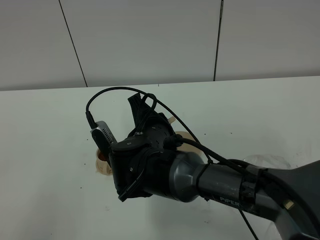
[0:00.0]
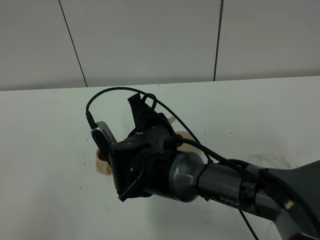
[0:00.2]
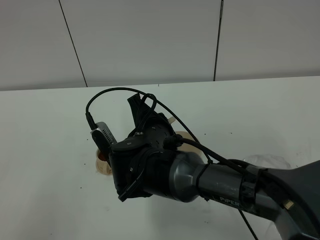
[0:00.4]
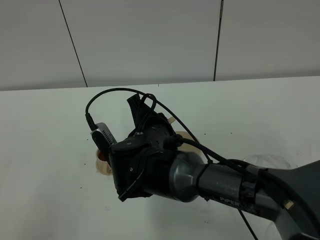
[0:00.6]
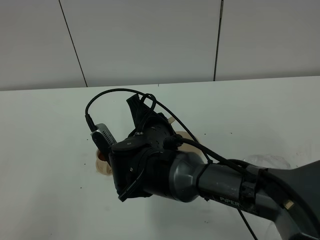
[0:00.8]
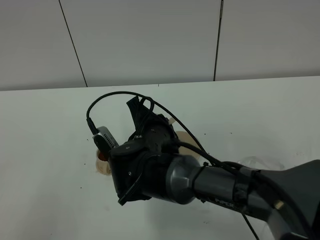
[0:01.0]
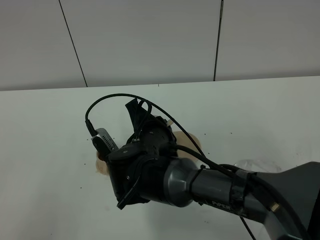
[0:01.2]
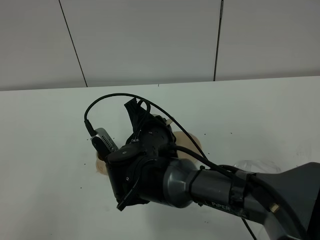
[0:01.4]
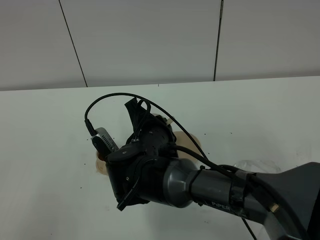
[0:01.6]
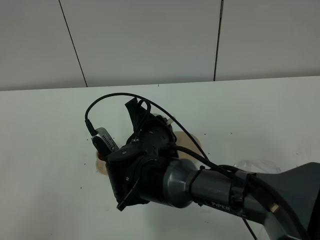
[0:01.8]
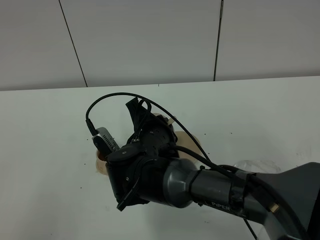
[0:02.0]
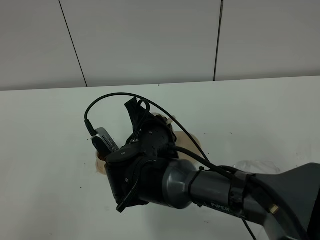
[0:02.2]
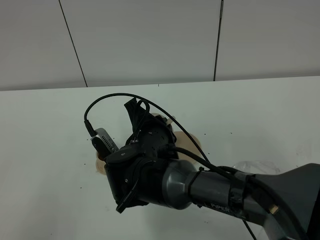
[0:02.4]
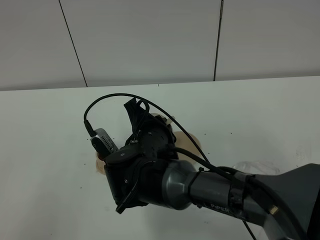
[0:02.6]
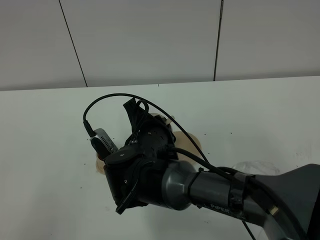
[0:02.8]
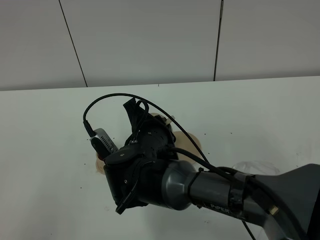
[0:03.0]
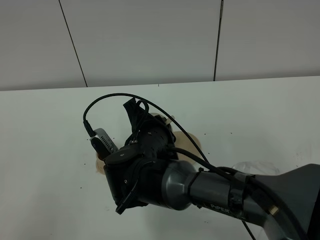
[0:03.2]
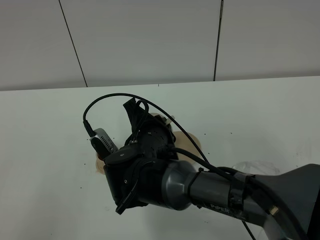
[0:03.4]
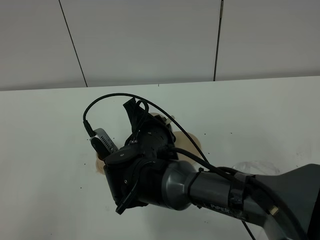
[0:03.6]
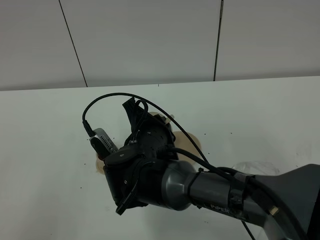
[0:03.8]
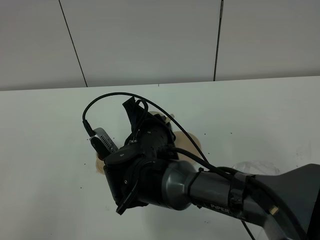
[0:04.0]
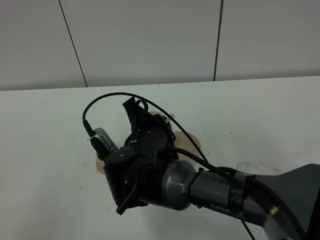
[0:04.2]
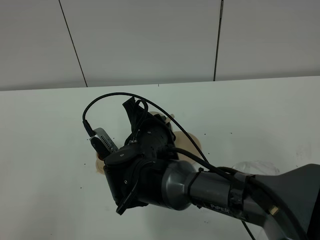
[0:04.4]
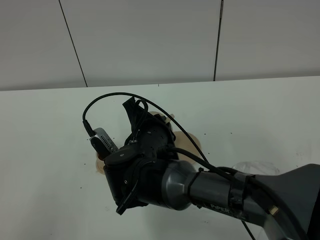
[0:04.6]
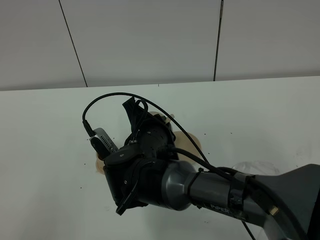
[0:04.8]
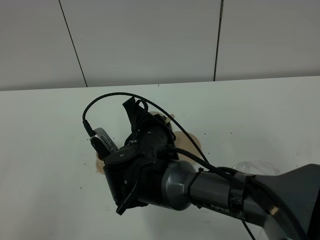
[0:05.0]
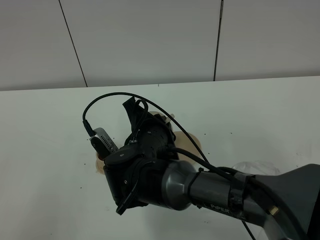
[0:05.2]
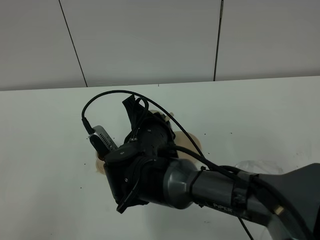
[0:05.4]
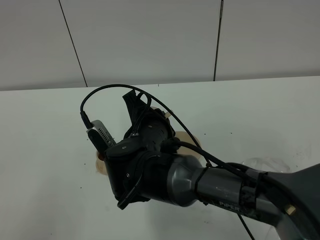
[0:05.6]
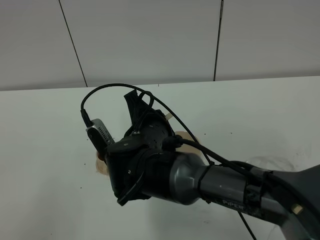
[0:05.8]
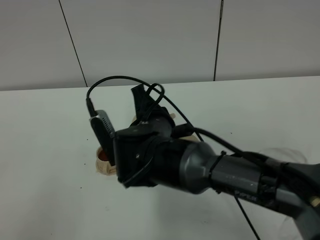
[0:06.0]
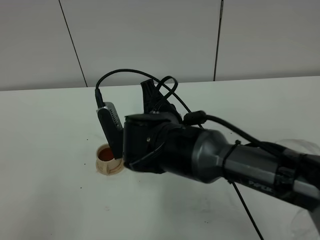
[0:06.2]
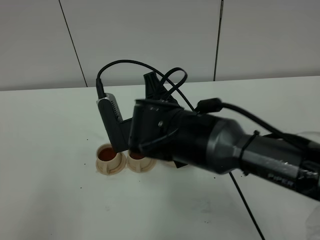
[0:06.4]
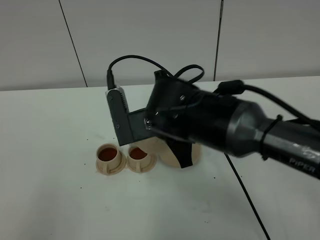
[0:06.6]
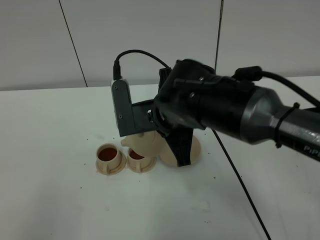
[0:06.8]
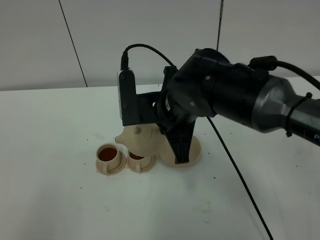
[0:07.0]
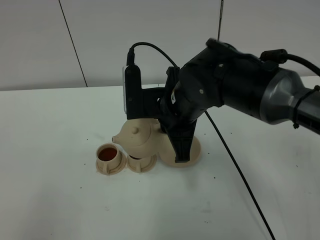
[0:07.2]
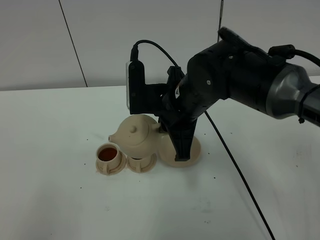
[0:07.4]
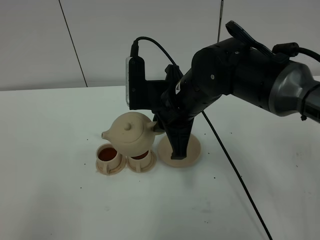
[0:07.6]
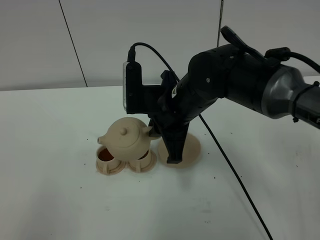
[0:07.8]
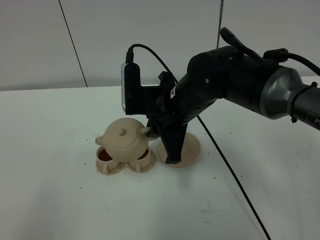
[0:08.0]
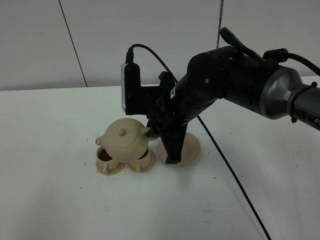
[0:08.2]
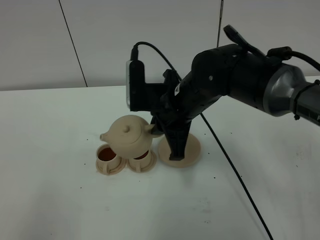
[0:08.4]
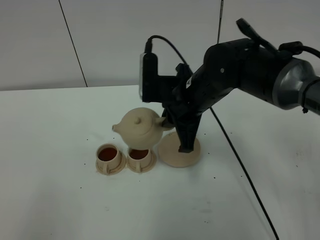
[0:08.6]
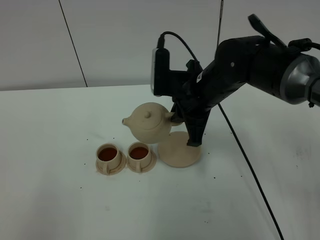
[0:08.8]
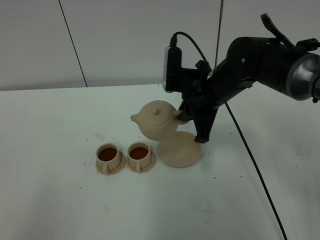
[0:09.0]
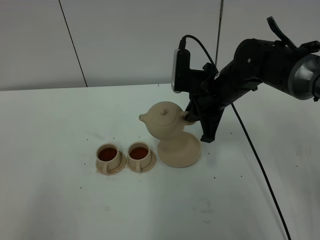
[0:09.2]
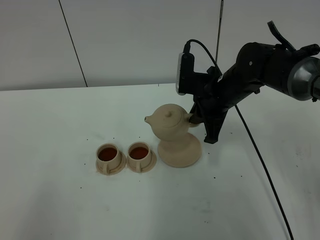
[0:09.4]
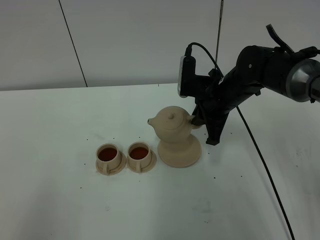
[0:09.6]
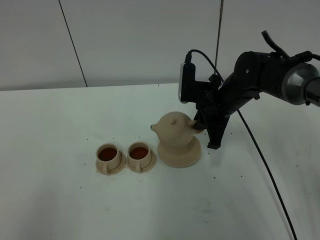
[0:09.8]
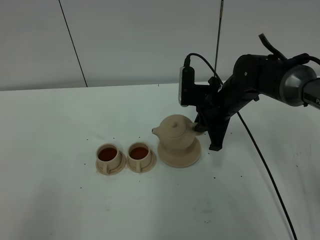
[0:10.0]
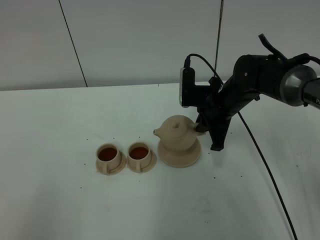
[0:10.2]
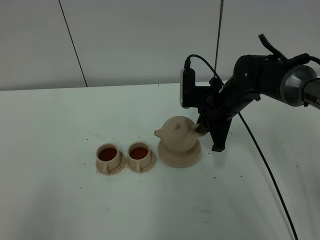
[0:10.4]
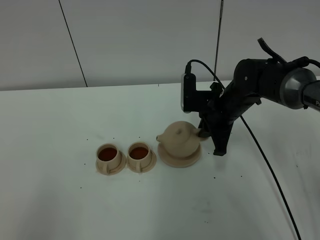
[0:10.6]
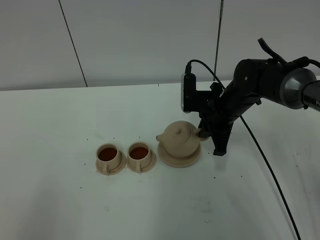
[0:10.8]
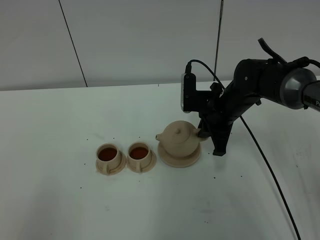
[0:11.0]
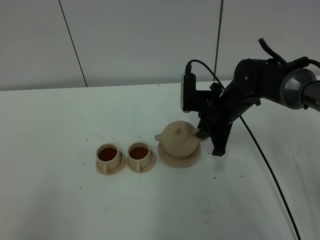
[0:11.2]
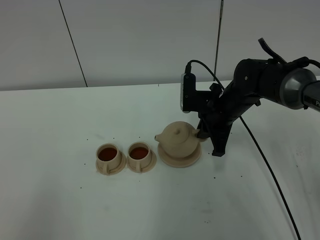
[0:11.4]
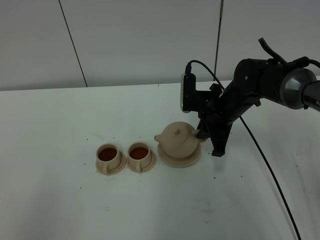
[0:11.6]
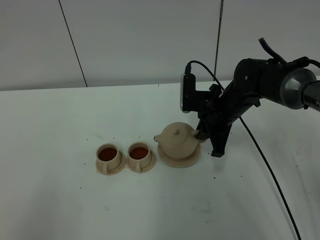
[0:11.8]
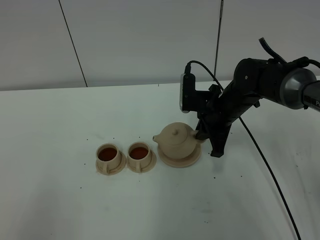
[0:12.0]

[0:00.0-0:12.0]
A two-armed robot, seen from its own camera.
Task of the whole recording: grasp the brown teapot and pour the tea into the two brown teacups one by one, put the brown teapot back in its original place.
Step, 0:00.0 to 0:06.2: Pour tea into the teacup with right gripper.
0:00.0 to 0:01.6: The grippers stay close to where they were, moving slightly.
0:01.6 to 0:04.4: Both grippers stay put.
0:04.4 to 0:06.0: The grippers move only a little.
0:06.0 to 0:07.6: The right gripper is displaced to the right and upward by about 10 cm.
0:07.6 to 0:09.0: The right gripper travels forward and to the right by approximately 10 cm.
0:09.0 to 0:10.4: The right gripper heads downward, covering roughly 5 cm.
0:10.4 to 0:12.0: Both grippers stay put.

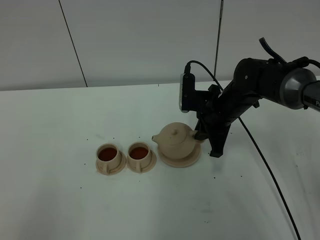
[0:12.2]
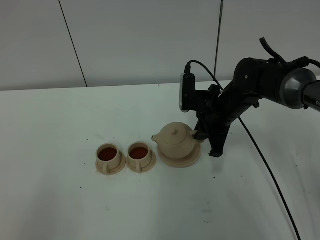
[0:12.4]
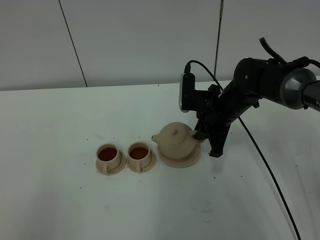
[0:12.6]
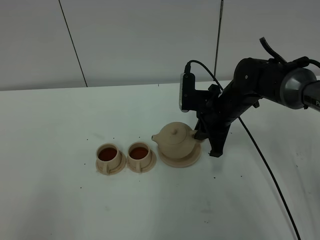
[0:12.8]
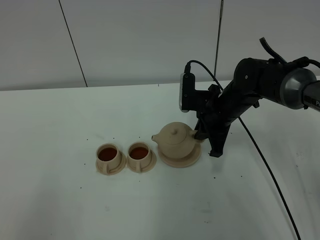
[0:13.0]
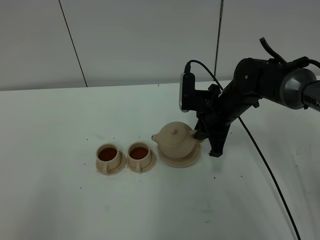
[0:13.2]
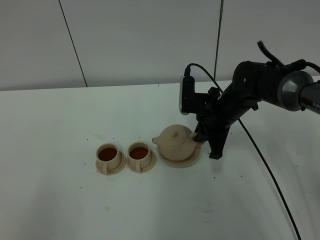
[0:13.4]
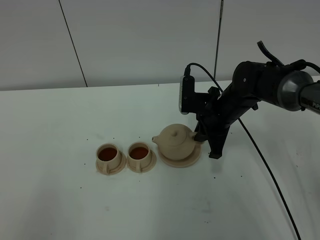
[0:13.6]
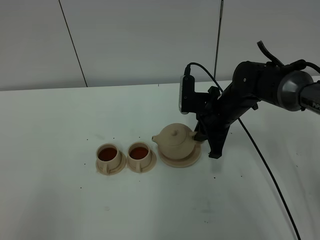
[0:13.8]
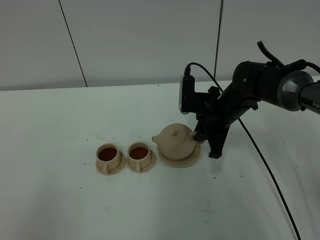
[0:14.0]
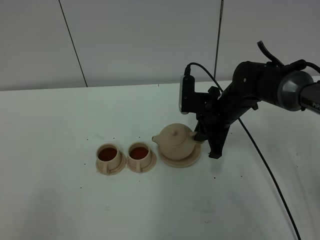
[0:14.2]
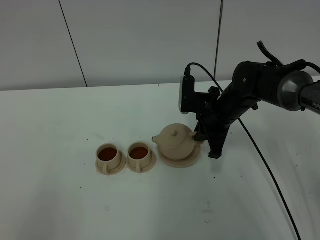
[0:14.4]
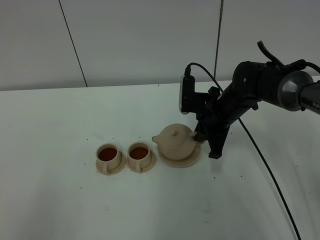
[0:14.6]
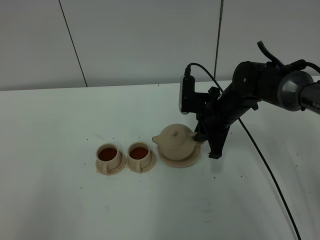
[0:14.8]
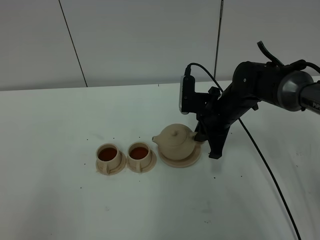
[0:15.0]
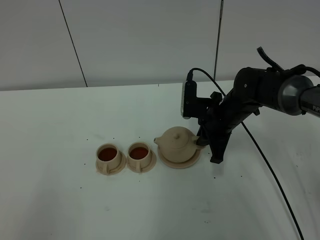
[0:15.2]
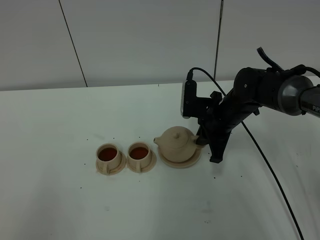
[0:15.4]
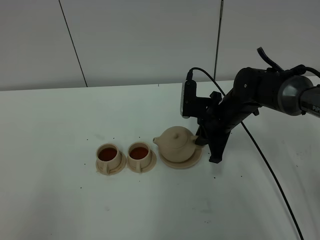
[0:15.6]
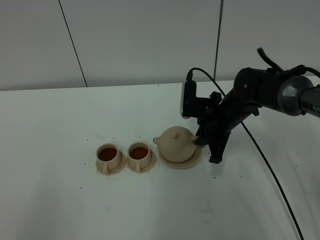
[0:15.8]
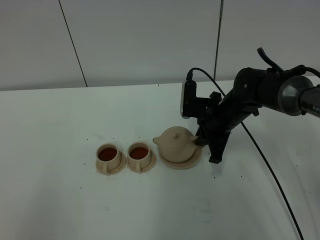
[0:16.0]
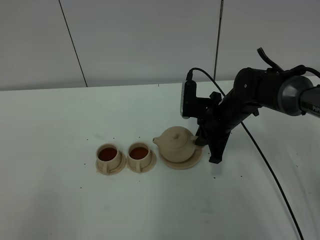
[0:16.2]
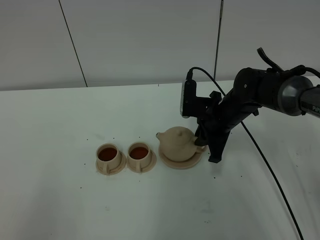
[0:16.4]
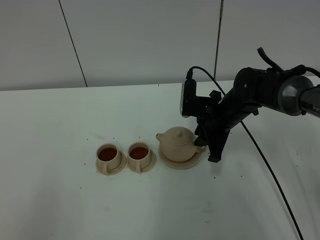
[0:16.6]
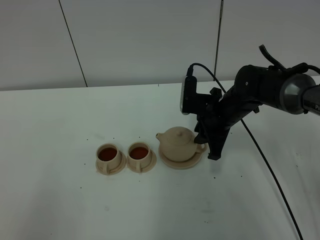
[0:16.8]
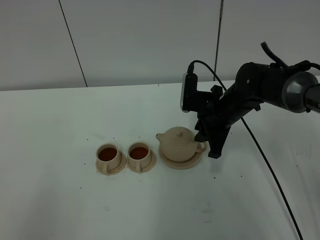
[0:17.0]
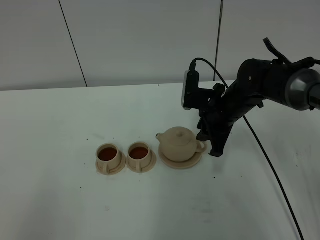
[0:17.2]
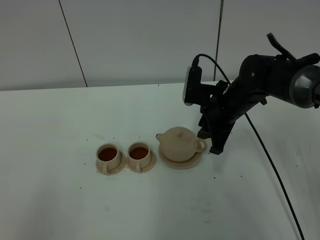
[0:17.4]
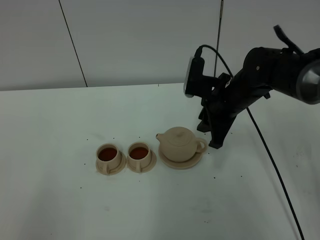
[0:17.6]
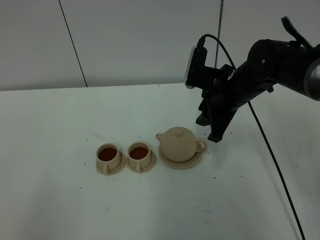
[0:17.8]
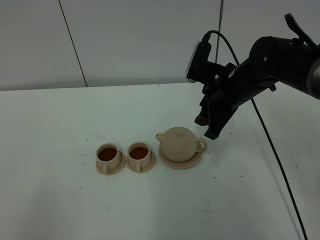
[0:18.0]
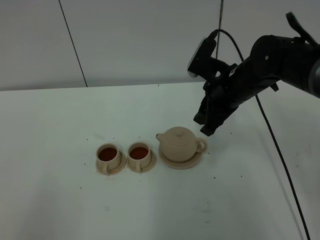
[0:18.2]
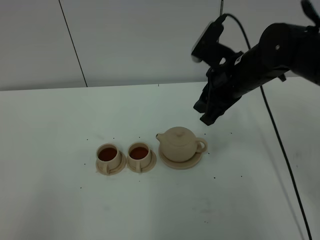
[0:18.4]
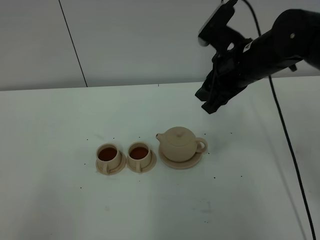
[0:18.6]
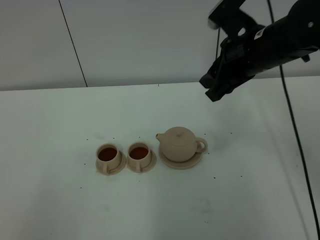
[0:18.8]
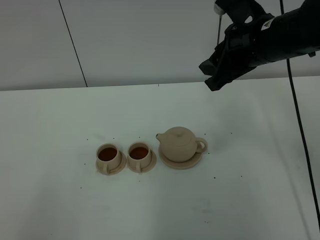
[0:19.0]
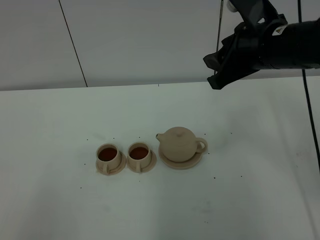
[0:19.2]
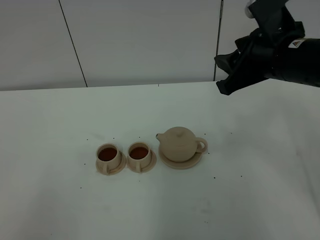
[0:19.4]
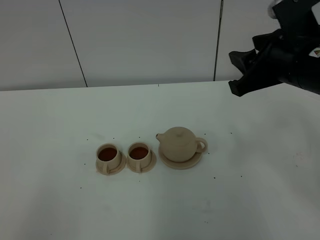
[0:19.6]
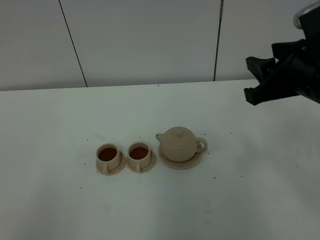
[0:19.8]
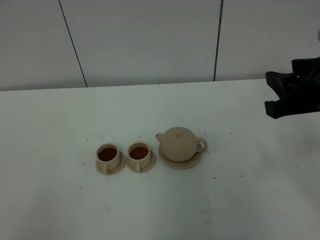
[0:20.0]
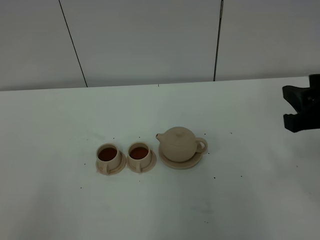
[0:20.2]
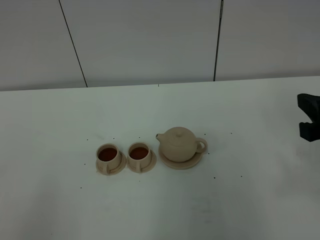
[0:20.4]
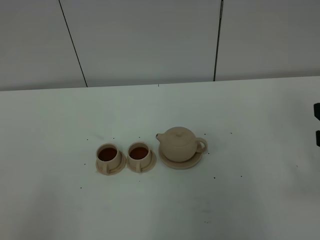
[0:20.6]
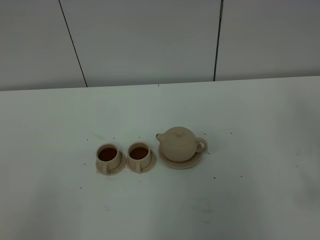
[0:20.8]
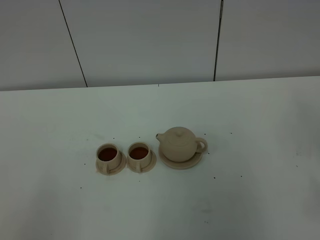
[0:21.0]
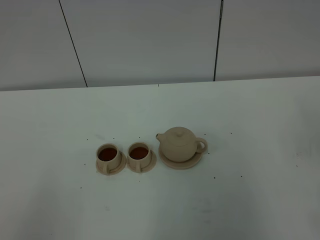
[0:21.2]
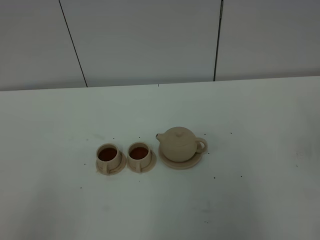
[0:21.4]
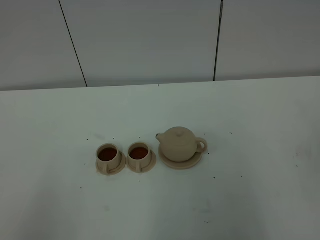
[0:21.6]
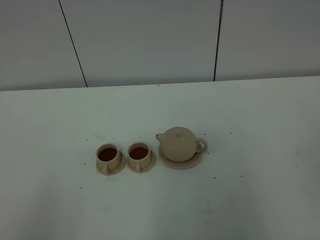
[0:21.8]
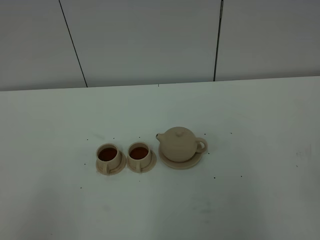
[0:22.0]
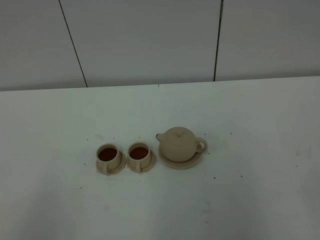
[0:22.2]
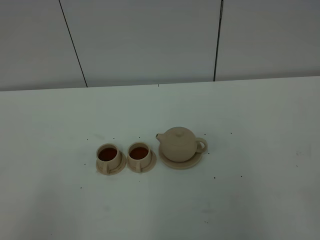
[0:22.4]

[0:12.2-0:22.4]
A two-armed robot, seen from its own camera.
Task of the whole recording: grasp the brown teapot and pour the tea into the two brown teacups one by one, put the brown teapot back in its original place.
Step, 0:12.2 to 0:17.2: Put down the teapot with right gripper.
0:12.2 to 0:13.6: Both grippers stay put.
0:13.6 to 0:15.2: Both grippers stay about where they are.
0:15.2 to 0:16.6: The right gripper opens its fingers.
0:16.6 to 0:18.0: The right gripper goes about 10 cm upward, and opens its fingers.
0:18.0 to 0:19.4: The right gripper shifts some 15 cm upward, backward and to the right.
0:19.4 to 0:21.0: The right gripper travels backward and to the right by roughly 20 cm.
